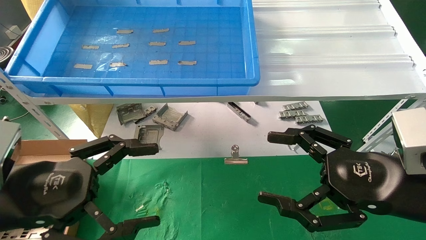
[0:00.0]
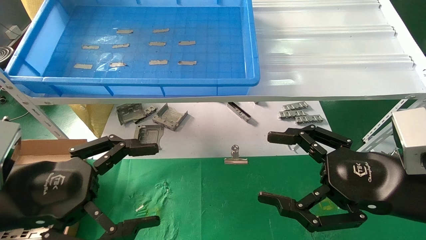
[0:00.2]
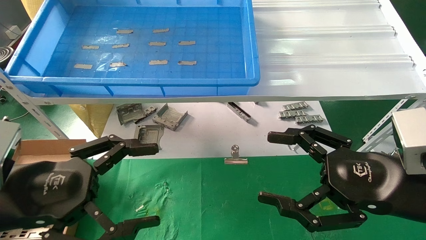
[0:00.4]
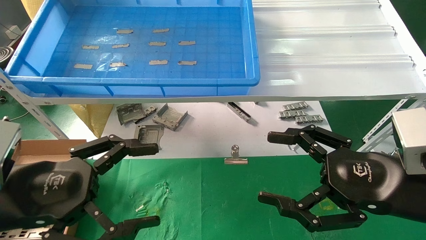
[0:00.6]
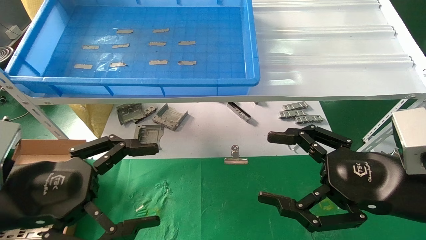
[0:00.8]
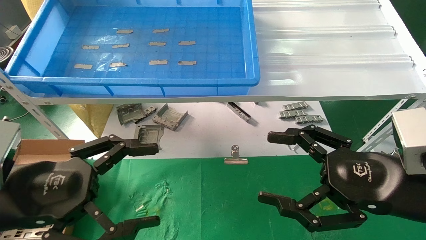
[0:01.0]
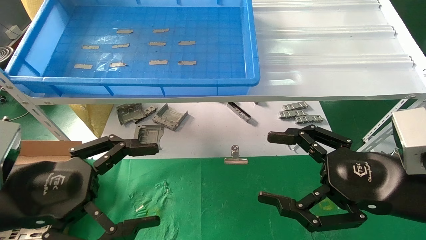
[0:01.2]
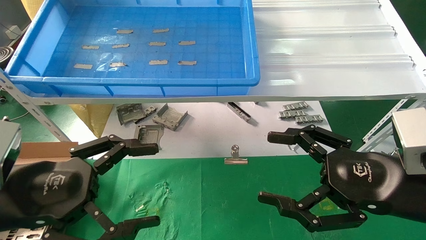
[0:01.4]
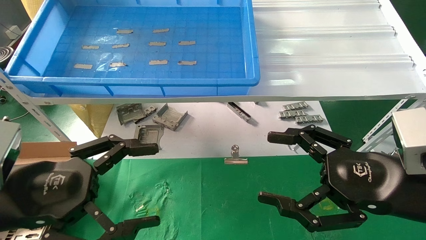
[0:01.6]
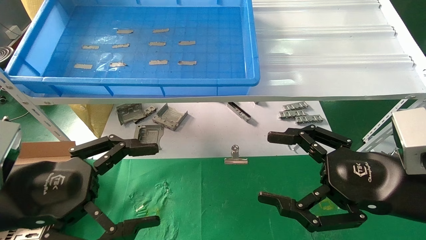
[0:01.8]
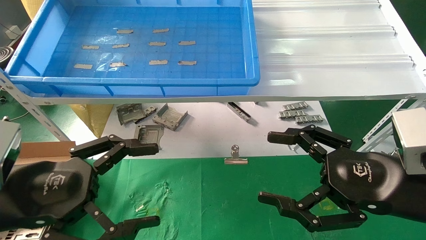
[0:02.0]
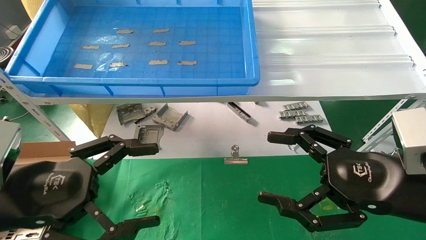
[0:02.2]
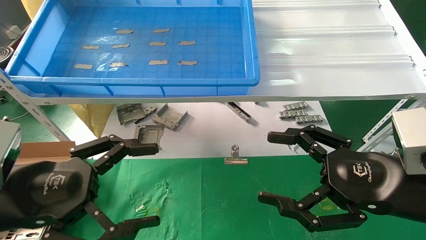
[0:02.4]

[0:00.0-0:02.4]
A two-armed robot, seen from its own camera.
Task of the whole recording: pick up the parts on the tray and put them in the cardboard box.
0:00.0 to 0:02.4: Both grippers stay about where they are.
